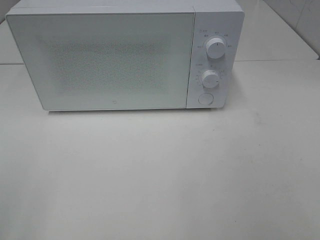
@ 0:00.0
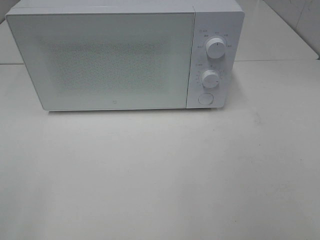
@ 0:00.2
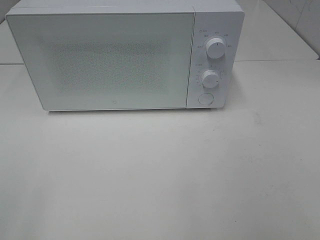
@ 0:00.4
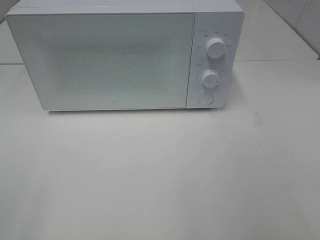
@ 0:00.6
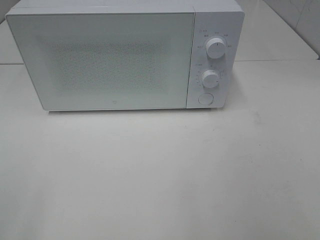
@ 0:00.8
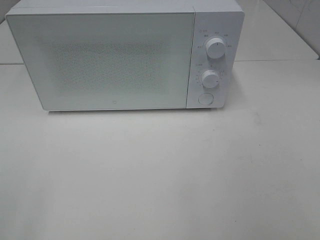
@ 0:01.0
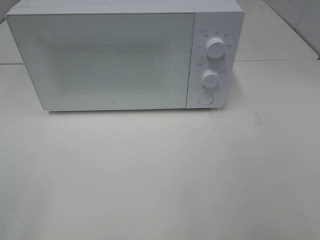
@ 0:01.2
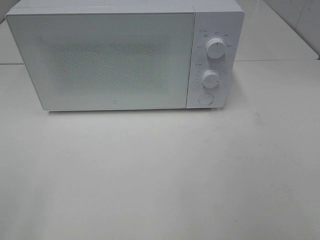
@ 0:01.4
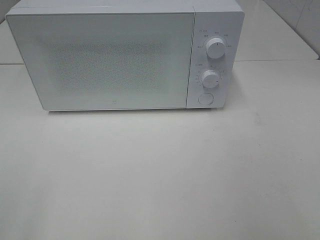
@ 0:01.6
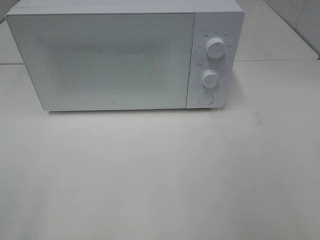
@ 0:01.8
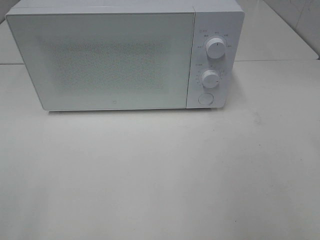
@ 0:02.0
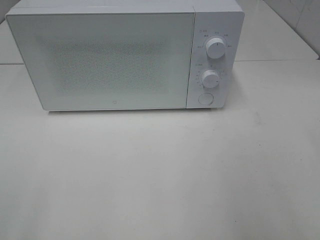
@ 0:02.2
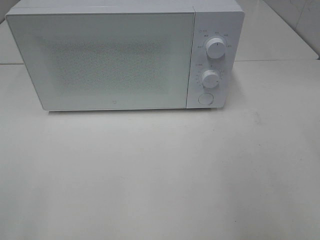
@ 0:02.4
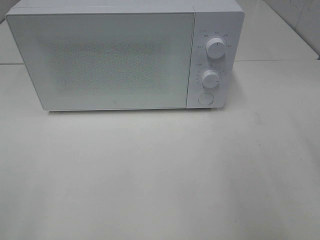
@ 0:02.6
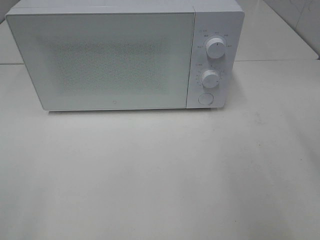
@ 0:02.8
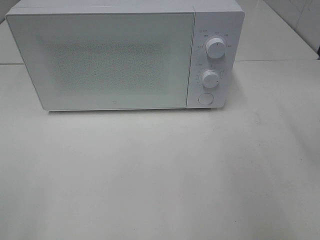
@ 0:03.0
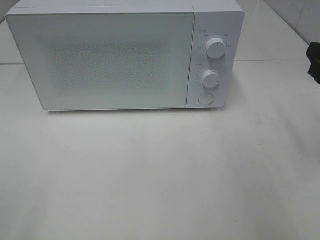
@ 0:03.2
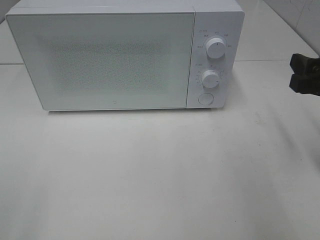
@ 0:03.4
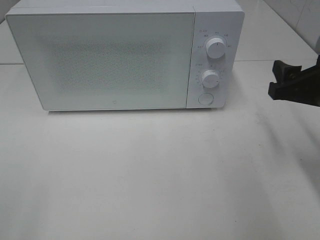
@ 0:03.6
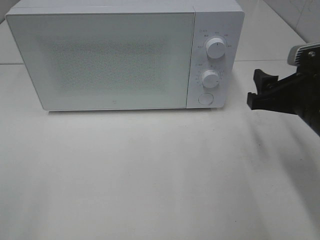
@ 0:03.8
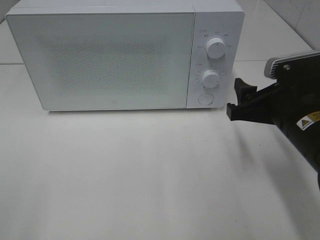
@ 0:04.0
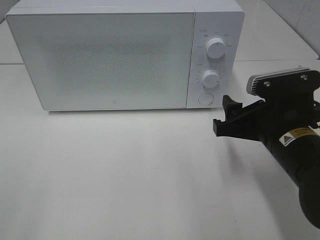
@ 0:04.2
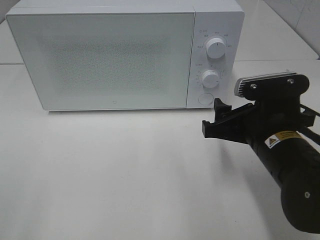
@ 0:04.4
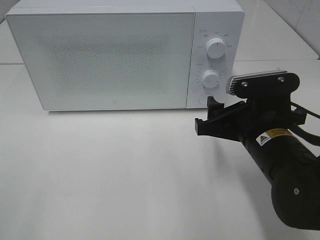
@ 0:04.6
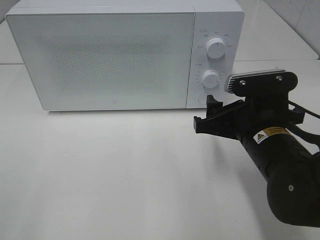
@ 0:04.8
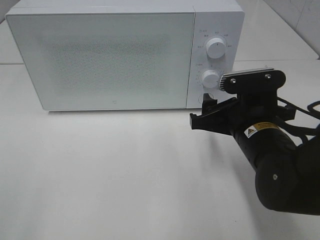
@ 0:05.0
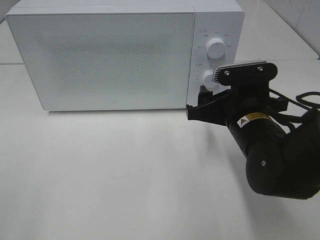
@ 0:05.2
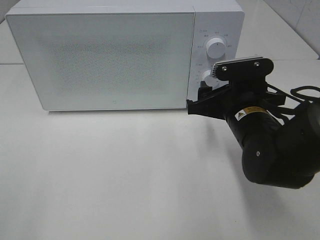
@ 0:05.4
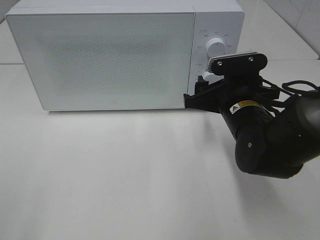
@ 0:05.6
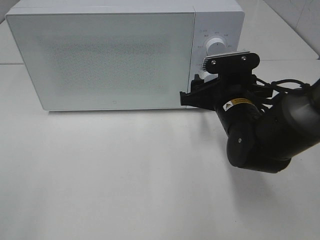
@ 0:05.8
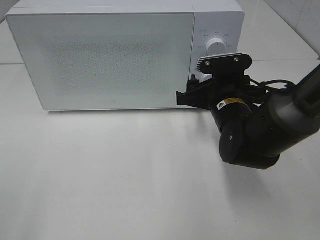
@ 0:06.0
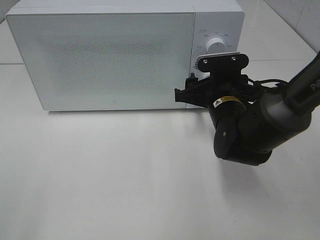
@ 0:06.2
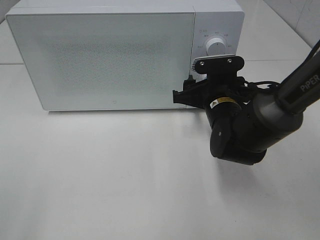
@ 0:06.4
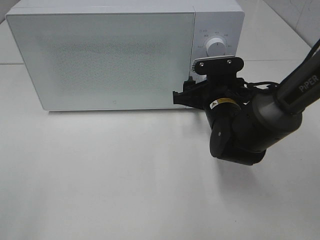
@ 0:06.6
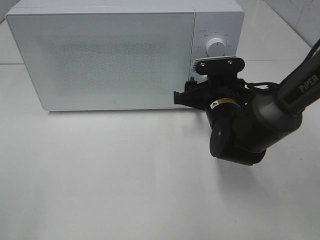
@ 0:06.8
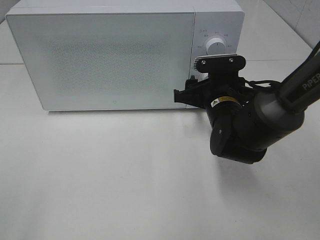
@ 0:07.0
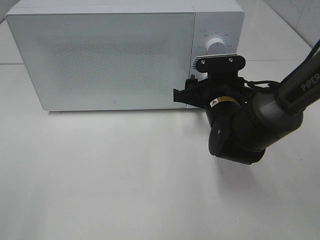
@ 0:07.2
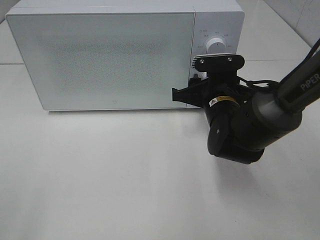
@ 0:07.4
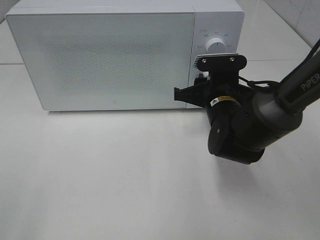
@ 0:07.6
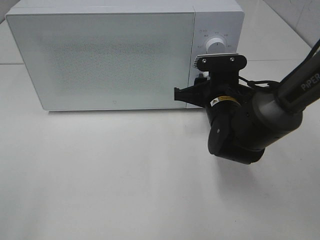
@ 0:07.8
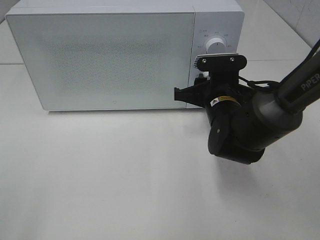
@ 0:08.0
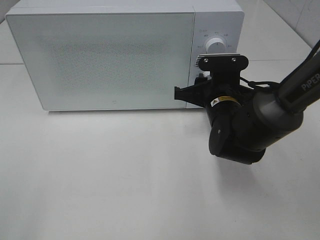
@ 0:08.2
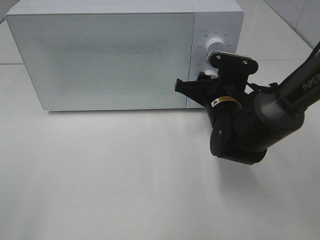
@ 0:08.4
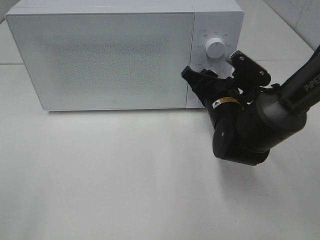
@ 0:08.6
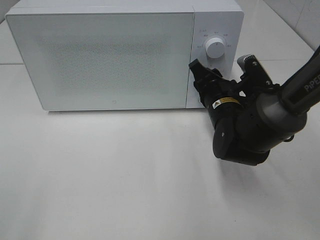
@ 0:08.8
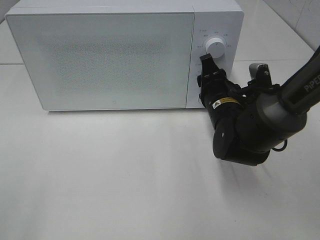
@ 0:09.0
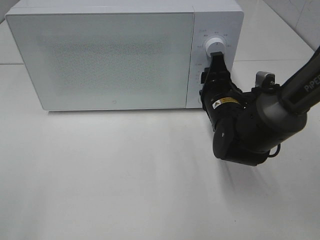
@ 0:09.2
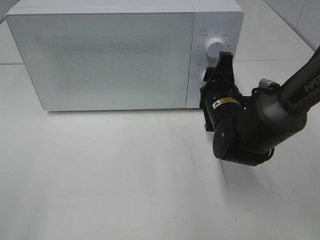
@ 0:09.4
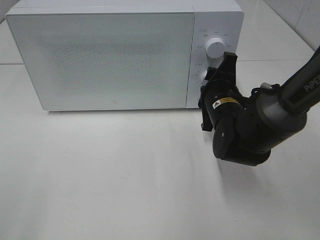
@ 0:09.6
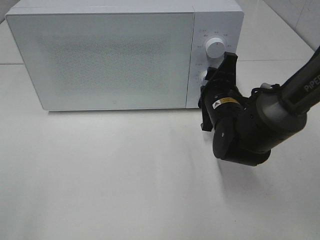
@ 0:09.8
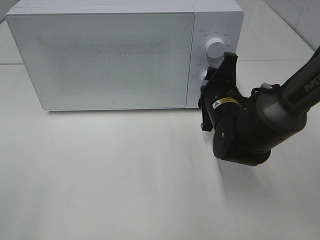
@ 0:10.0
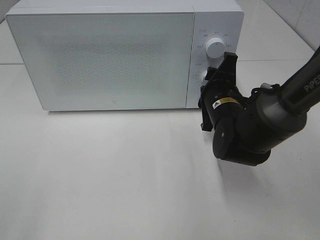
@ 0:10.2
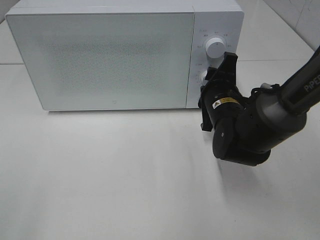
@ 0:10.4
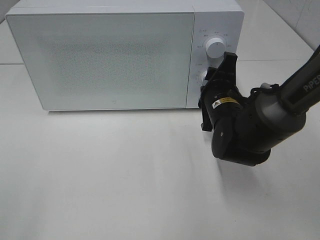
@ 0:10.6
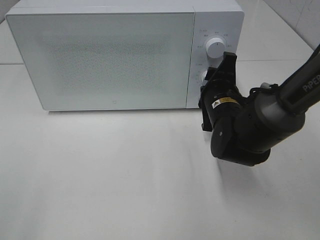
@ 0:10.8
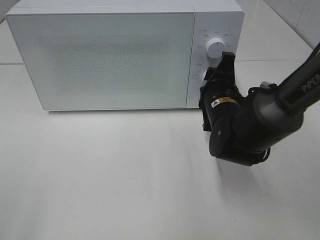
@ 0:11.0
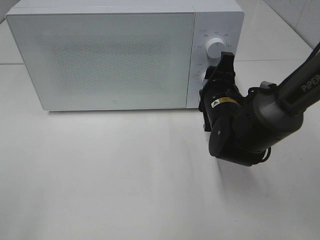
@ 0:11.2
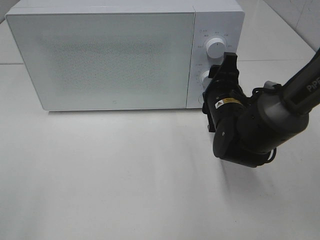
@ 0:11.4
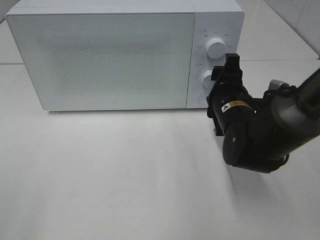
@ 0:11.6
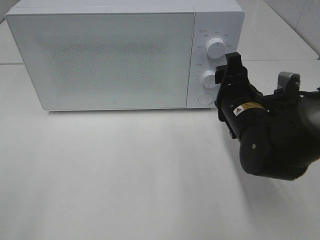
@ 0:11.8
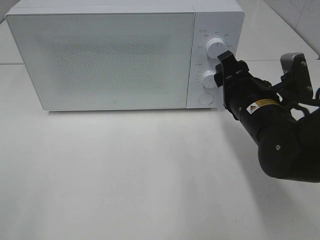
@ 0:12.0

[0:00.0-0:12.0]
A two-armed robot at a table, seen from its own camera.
Task of the whole recording: Heat the burger.
Step, 0:00.0 to 0:11.2: Right hand: twist timer button.
0:03.0 to 0:04.4: The right gripper is displaced to the left and downward by about 15 cm.
0:04.4 to 0:06.0: The right gripper travels forward by about 10 cm.
0:06.0 to 0:07.6: The grippers stay close to where they were, moving slightly.
0:10.4 to 0:12.0: The right gripper is displaced backward by about 5 cm.

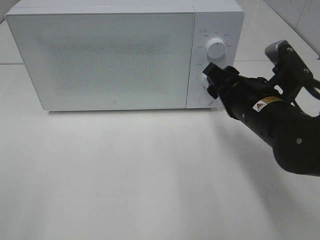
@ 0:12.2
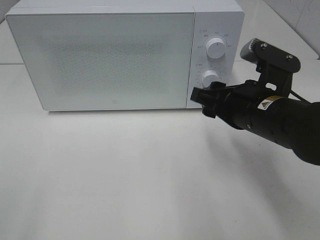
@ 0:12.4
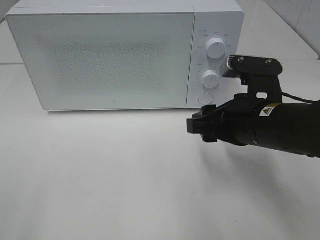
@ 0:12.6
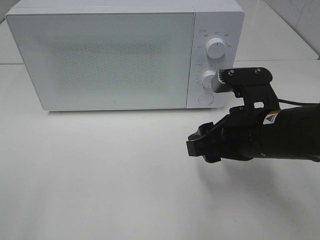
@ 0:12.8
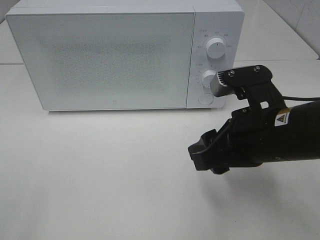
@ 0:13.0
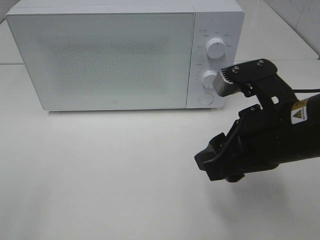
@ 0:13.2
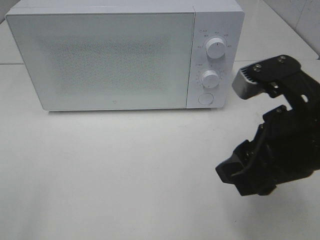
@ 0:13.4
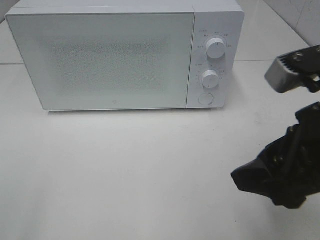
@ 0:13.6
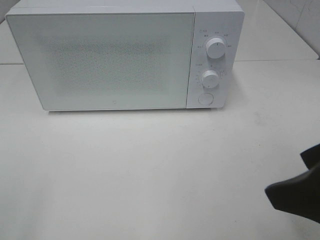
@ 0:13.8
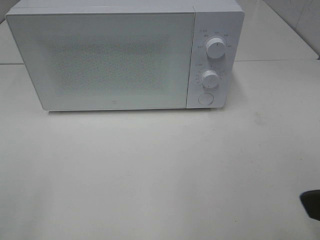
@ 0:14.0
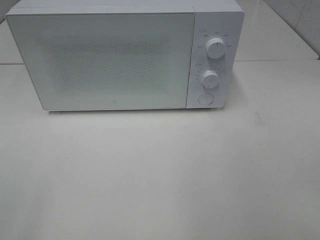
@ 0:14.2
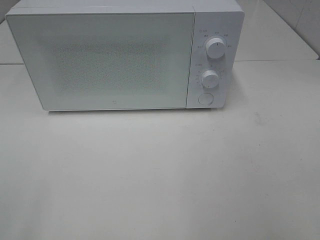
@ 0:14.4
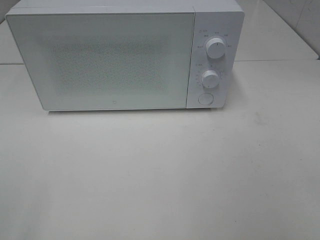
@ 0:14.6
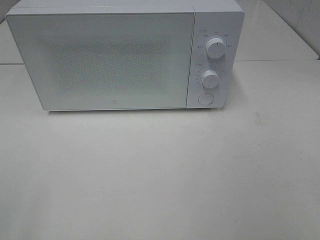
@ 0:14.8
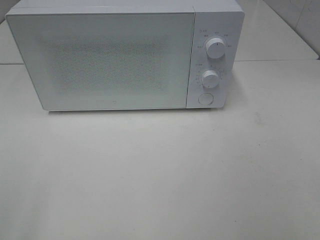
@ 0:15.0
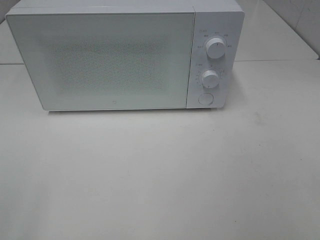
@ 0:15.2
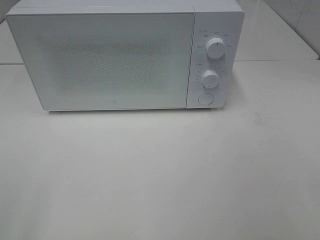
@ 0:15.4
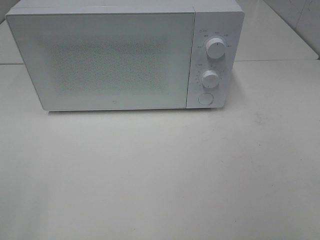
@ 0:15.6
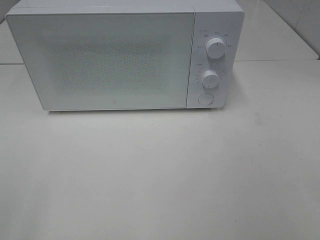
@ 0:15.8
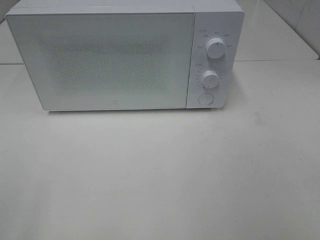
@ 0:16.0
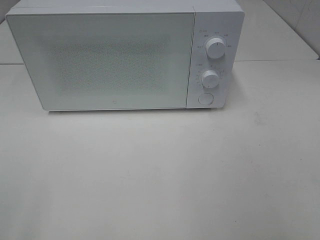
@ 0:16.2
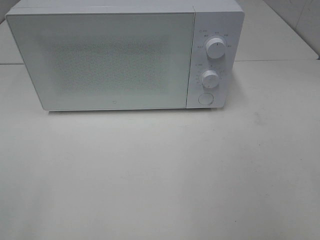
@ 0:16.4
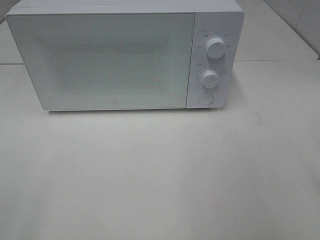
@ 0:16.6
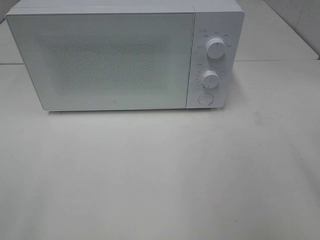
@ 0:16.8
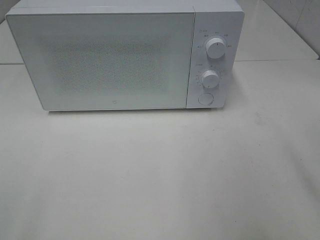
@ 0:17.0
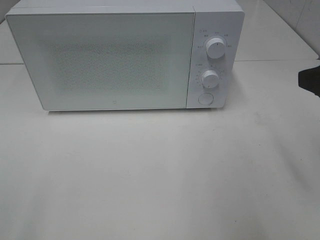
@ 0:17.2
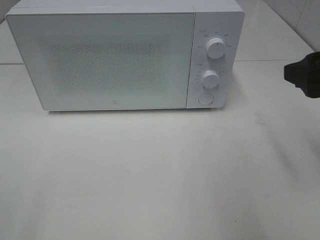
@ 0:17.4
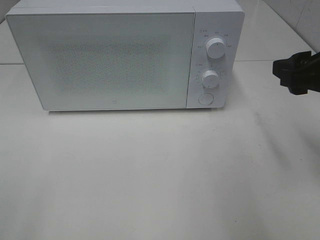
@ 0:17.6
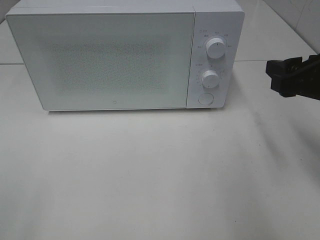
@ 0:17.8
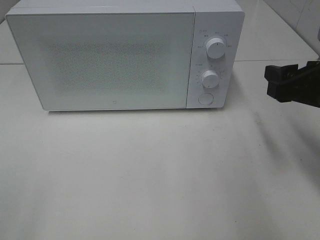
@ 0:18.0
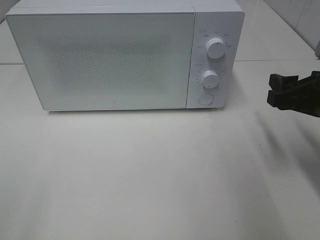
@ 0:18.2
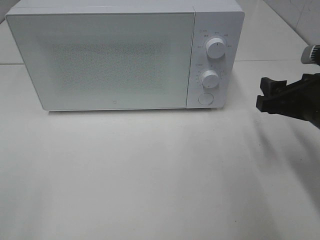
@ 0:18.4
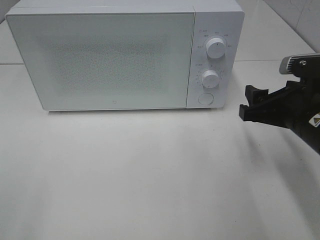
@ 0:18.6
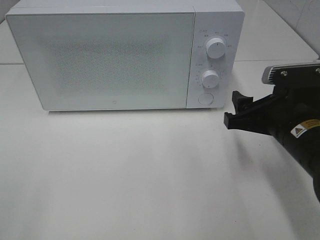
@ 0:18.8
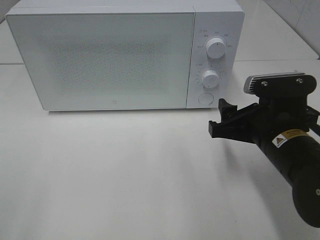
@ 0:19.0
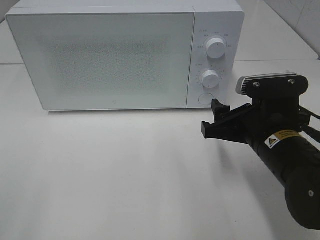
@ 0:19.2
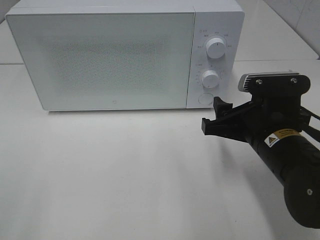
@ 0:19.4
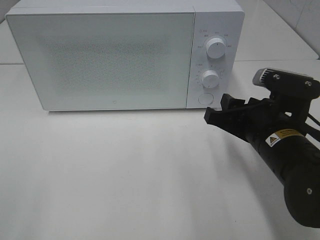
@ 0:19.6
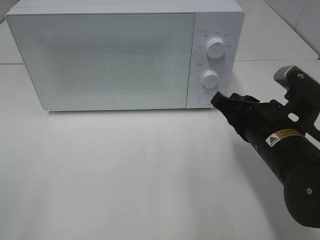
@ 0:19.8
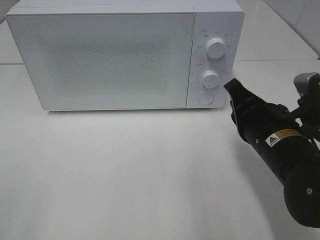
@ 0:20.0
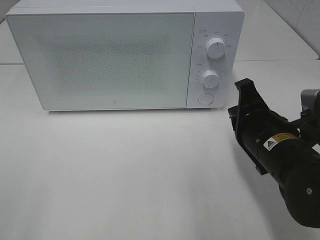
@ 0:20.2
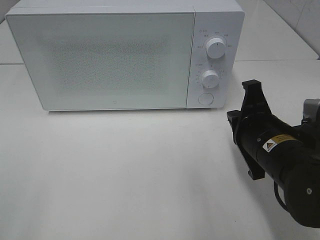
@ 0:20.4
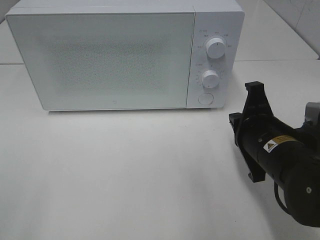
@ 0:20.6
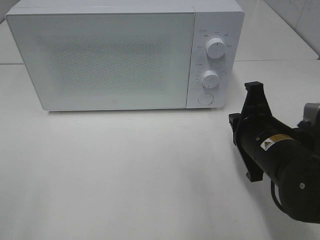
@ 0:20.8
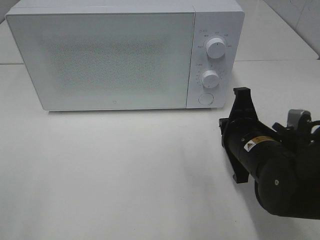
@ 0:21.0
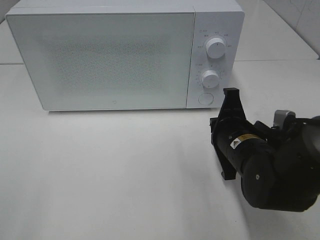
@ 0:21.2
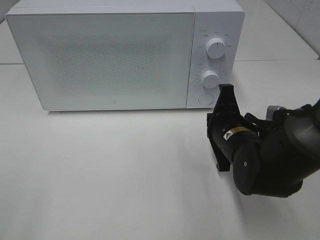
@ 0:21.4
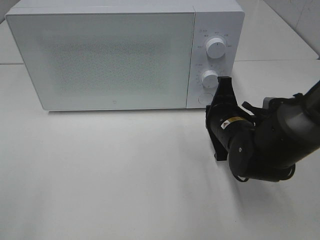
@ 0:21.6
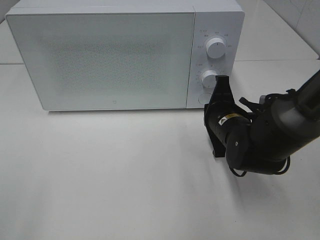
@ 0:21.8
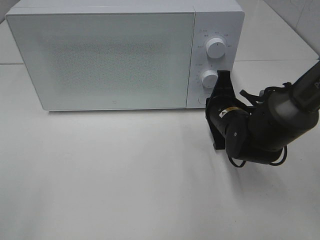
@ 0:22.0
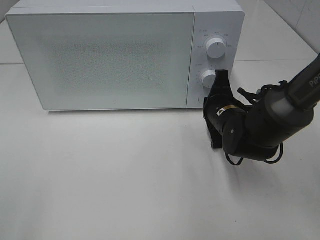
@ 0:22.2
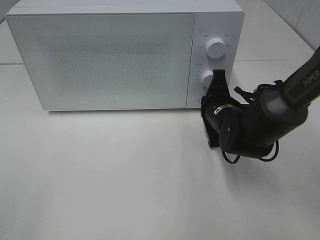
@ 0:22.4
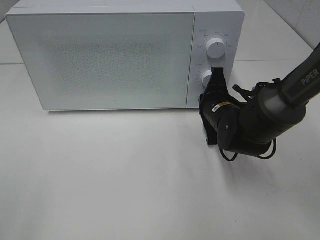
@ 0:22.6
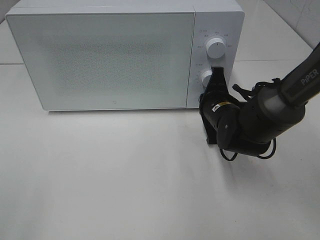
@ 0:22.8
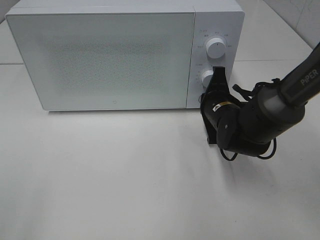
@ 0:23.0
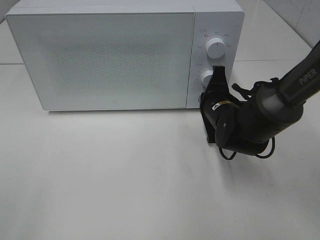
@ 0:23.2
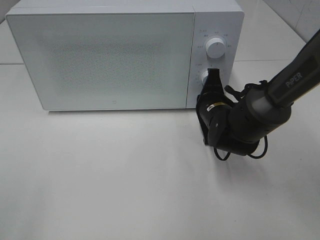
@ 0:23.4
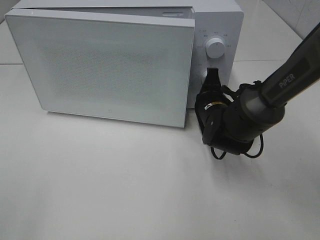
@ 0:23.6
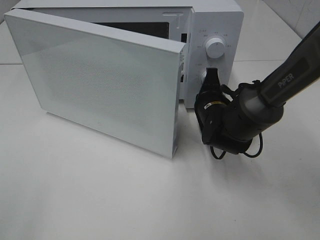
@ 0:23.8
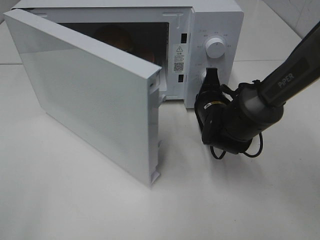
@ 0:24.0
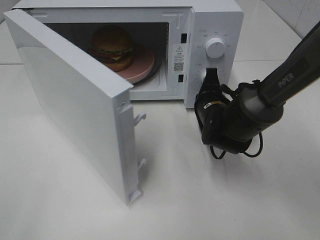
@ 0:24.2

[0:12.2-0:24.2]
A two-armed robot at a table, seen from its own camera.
Task of the whole recording: Heat the burger.
0:12.2 to 0:13.8: The right gripper goes roughly 20 cm backward and upward.
0:13.8 to 0:15.2: The right gripper shifts some 15 cm backward and to the right.
0:16.6 to 0:18.2: The right gripper goes some 20 cm forward and downward.
0:18.2 to 0:19.8: The right gripper is displaced to the left by some 10 cm, and closes up.
0:19.8 to 0:21.2: The right gripper changes place by some 5 cm.
0:21.2 to 0:22.6: The right gripper shifts some 10 cm forward.
